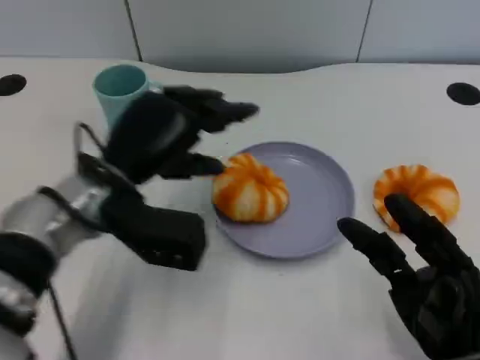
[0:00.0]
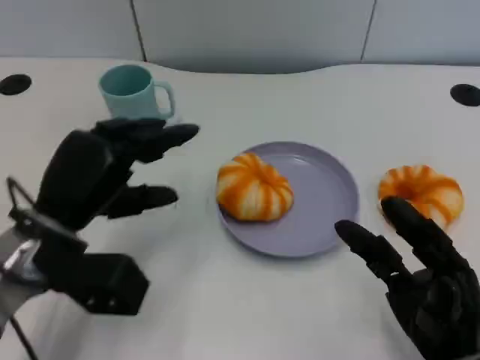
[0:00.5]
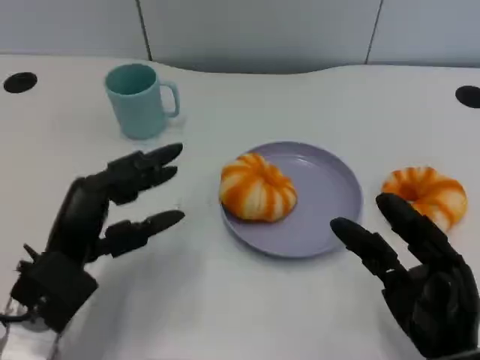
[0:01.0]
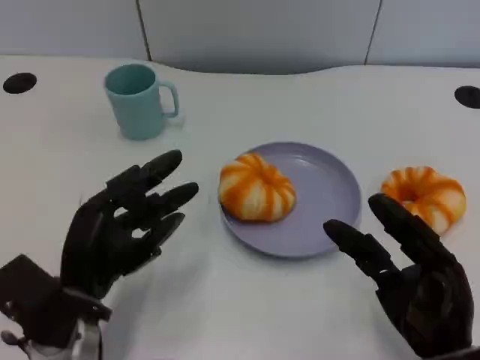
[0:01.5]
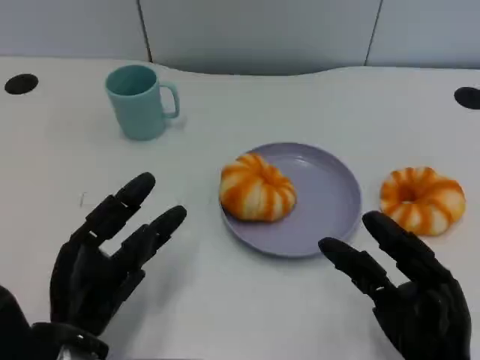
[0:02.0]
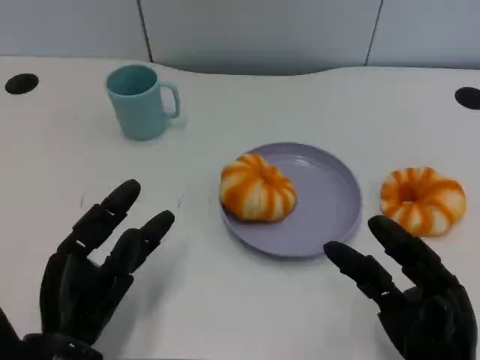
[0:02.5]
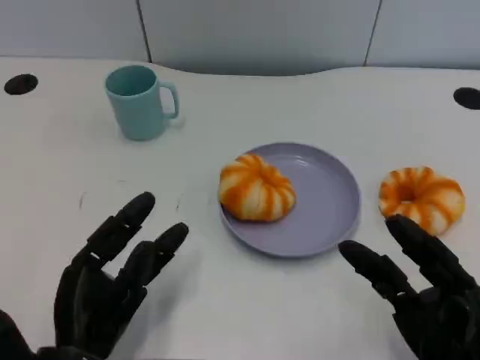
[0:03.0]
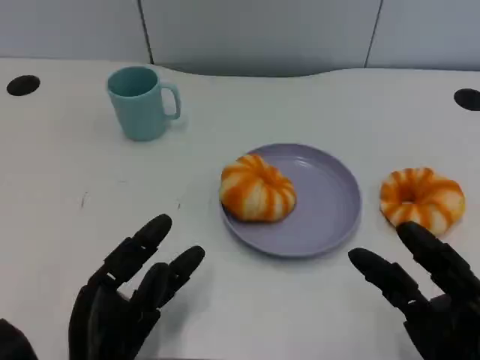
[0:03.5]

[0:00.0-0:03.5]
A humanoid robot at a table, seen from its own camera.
Task of the whole recording: Grasp the bread from the table and place it into the plate.
0:00.0 to 0:02.0: The left hand goes some 15 cm backward and downward.
0:02.0 to 0:03.5: The hands make only small movements.

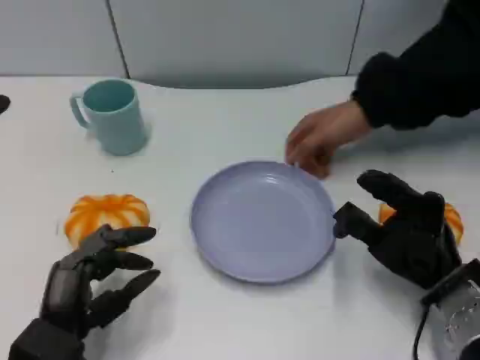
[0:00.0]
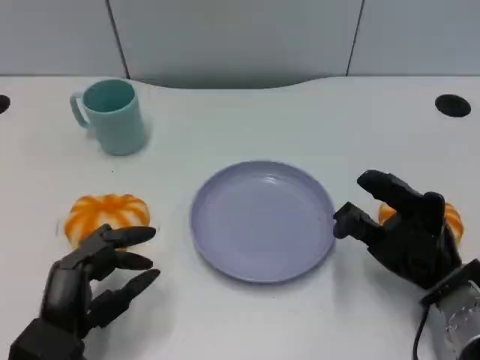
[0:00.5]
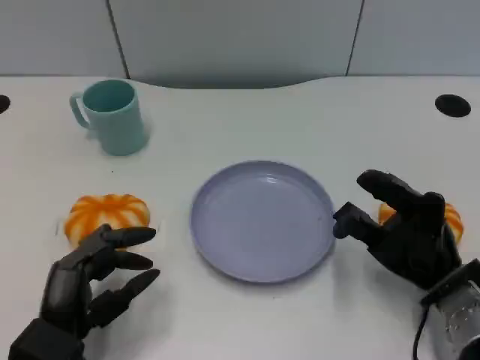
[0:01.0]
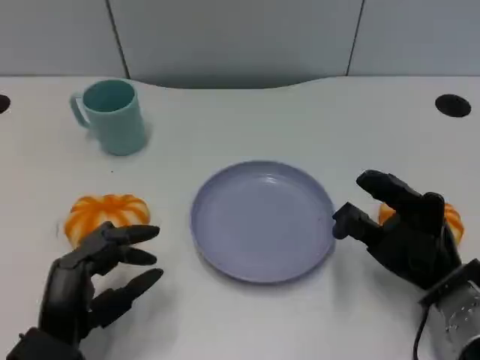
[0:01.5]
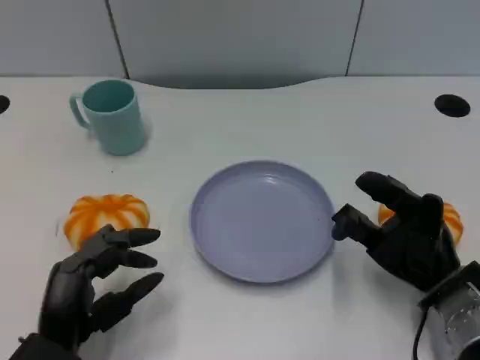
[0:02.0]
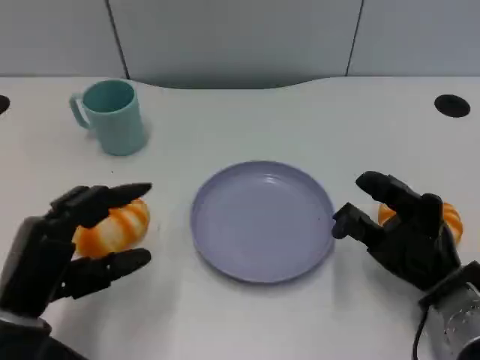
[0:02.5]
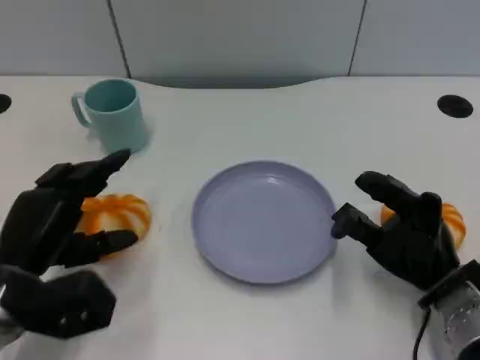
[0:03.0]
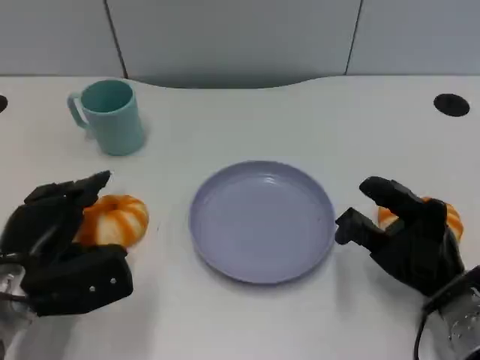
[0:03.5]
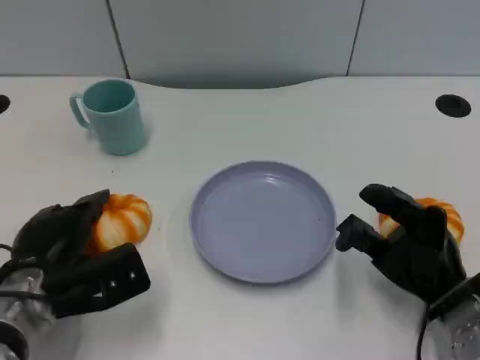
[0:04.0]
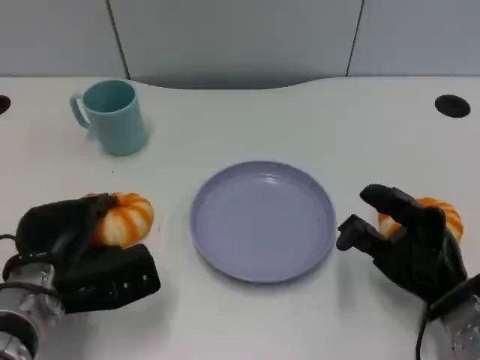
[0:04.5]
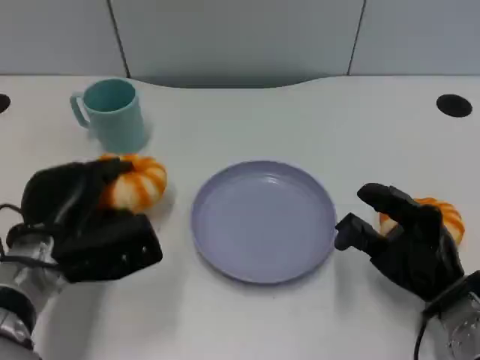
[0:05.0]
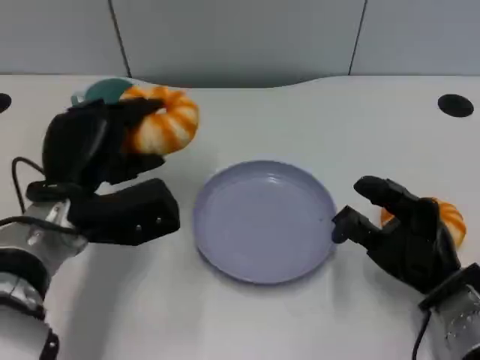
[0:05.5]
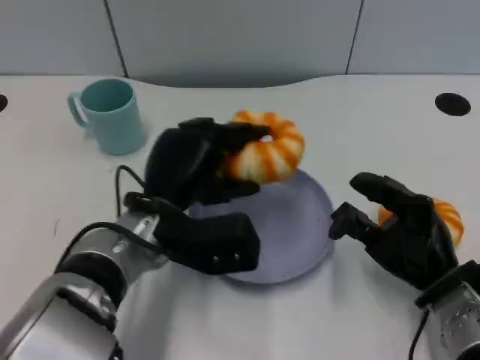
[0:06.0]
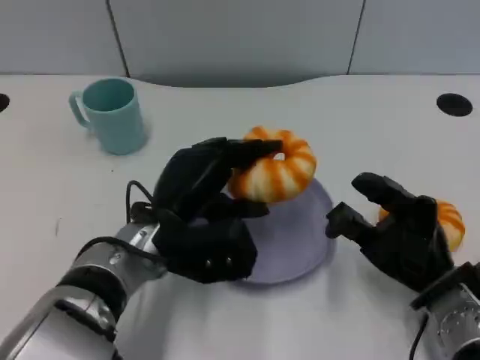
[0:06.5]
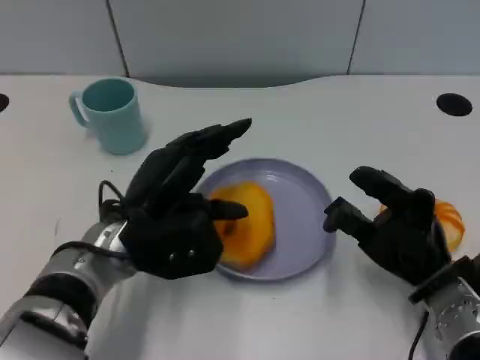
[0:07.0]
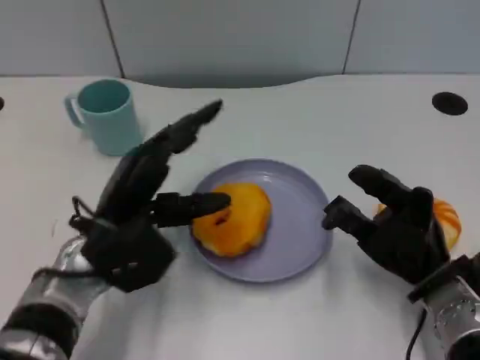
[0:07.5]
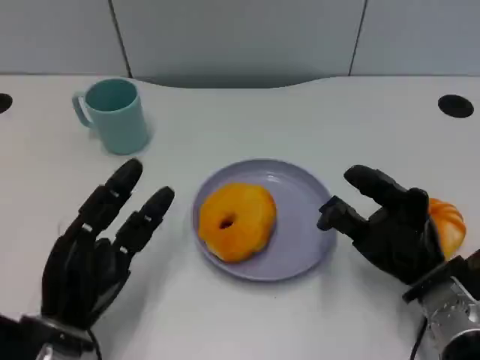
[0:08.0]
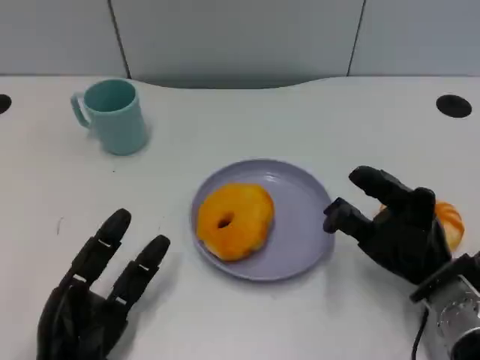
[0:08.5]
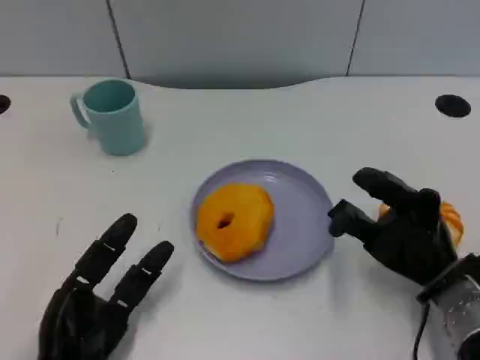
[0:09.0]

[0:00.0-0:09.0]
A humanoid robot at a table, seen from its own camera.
Task of the whole recording: Grasp the bread from the table and place it into the plate.
0:02.0 to 0:04.5: The left hand shifts approximately 10 cm forward.
0:04.5 to 0:07.0: The left hand shifts about 10 cm to the right.
0:07.0 to 0:09.0: The left hand is displaced backward, downward and to the left by some 15 cm.

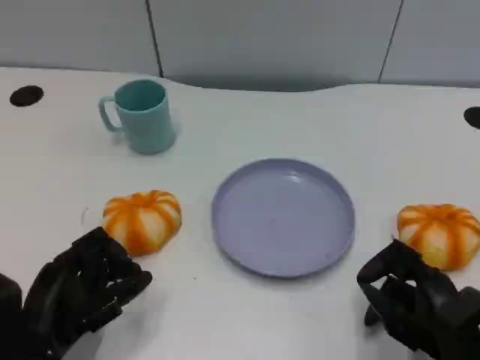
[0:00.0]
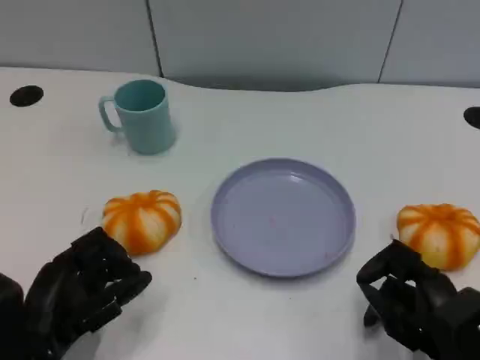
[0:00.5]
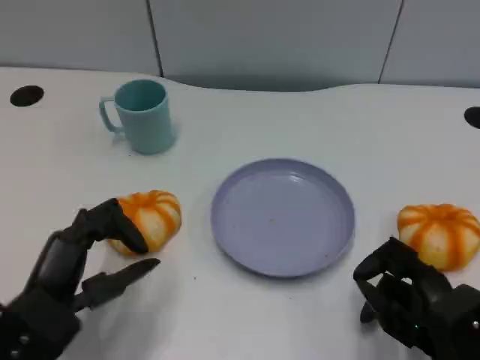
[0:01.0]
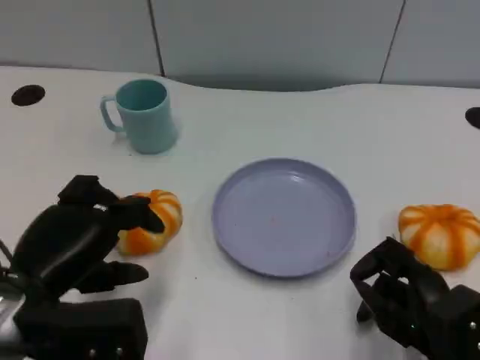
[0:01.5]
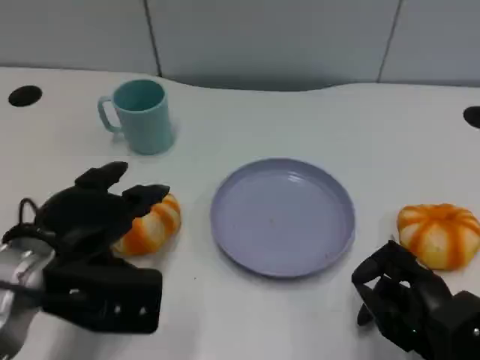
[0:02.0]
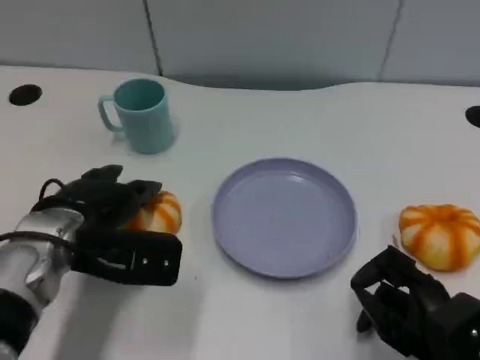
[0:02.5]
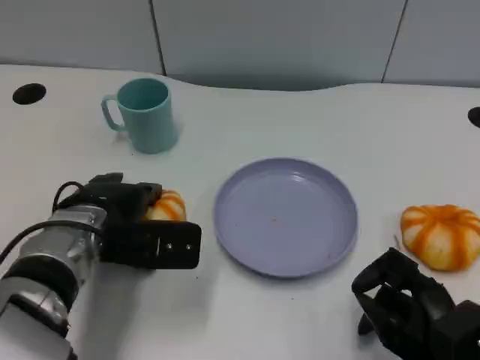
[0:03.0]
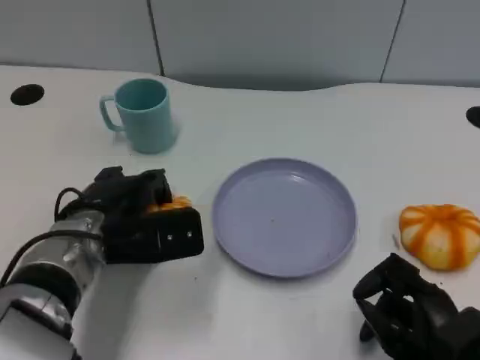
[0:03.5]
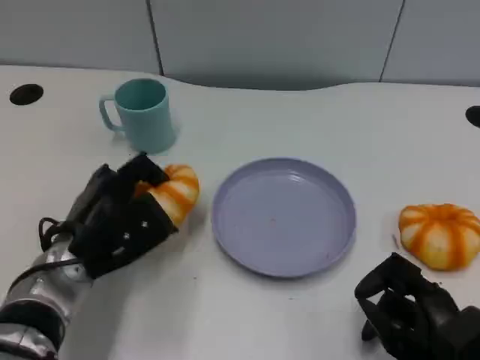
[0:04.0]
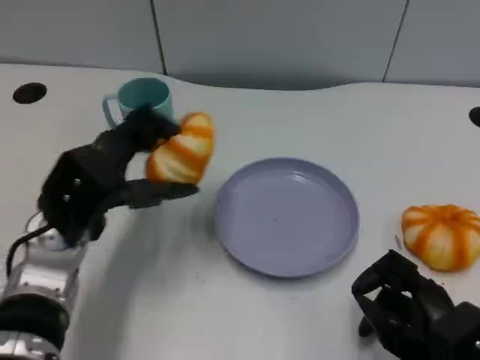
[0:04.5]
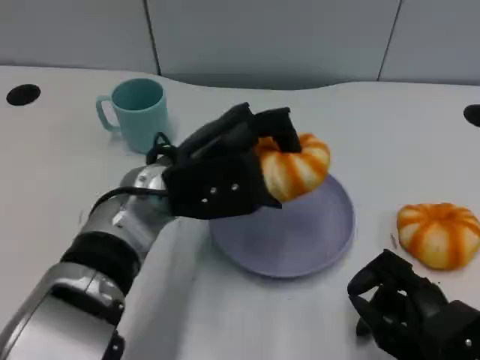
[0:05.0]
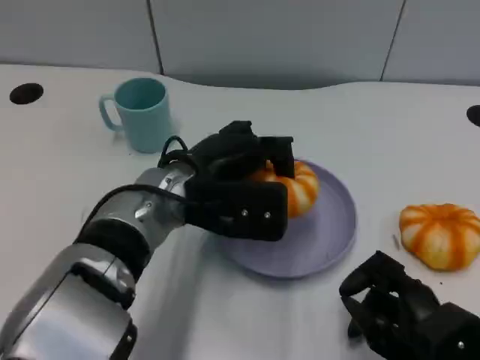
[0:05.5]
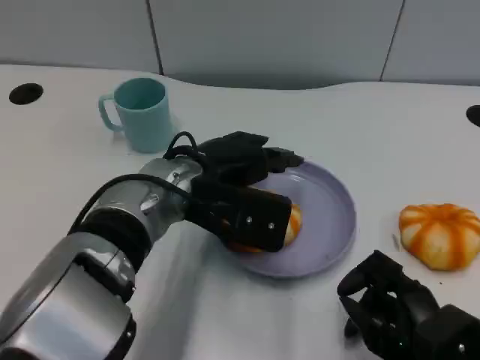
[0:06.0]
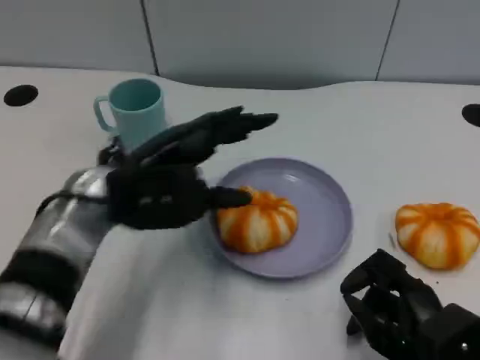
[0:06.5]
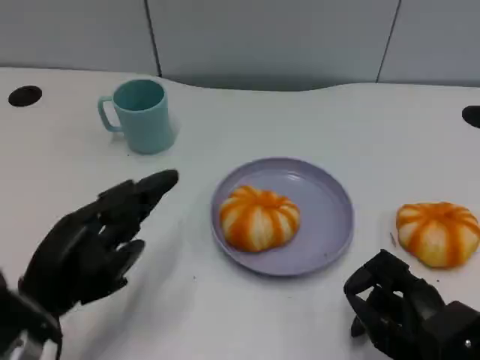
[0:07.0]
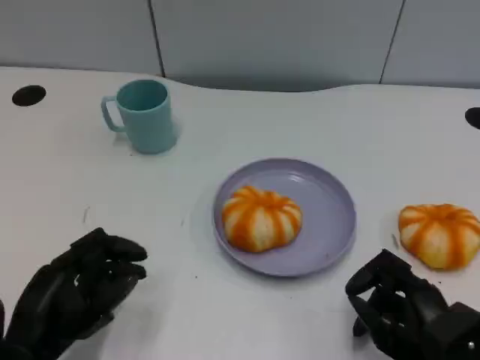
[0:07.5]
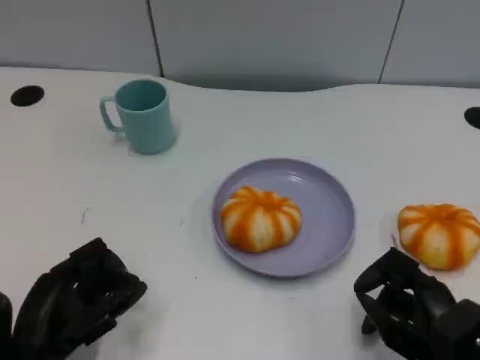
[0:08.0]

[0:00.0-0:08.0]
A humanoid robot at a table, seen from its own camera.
Task of the whole recording: Grasp the bread from the table and place it into the plate.
0:00.0 to 0:02.0: The left hand shifts approximately 10 cm upward and forward.
0:02.0 to 0:04.0: The left hand goes some 5 cm downward.
0:04.0 to 0:06.0: The left hand travels to the right and upward by approximately 15 cm.
0:06.0 to 0:08.0: The left hand travels to the left, backward and downward by roughly 25 cm.

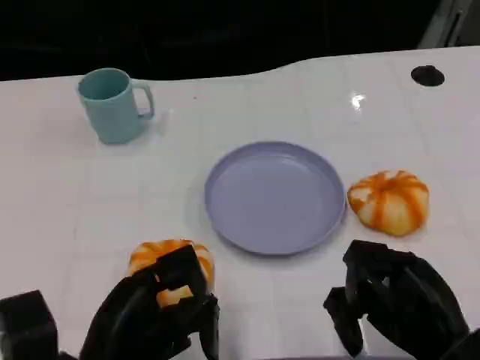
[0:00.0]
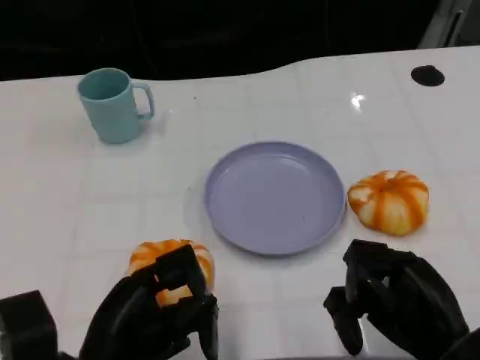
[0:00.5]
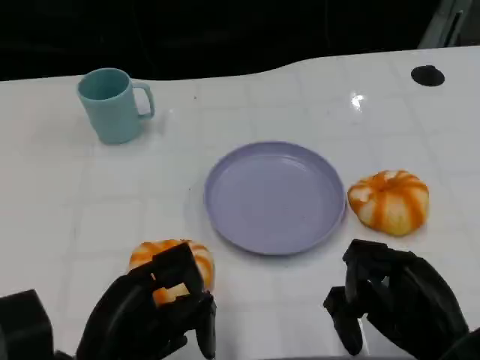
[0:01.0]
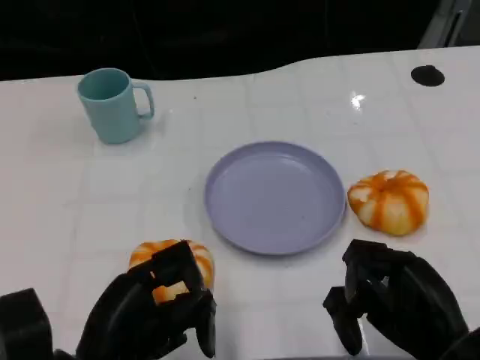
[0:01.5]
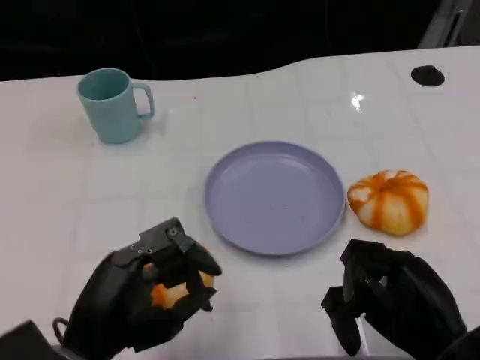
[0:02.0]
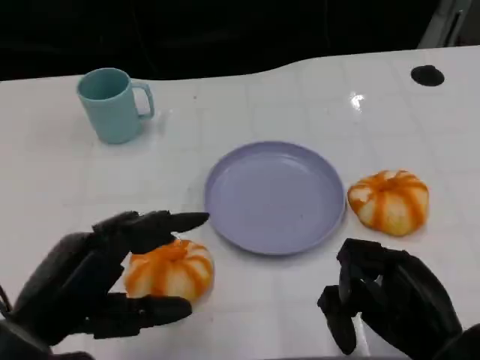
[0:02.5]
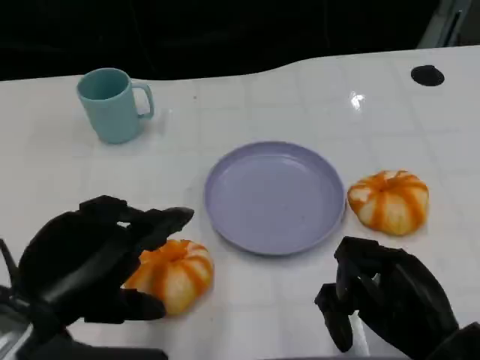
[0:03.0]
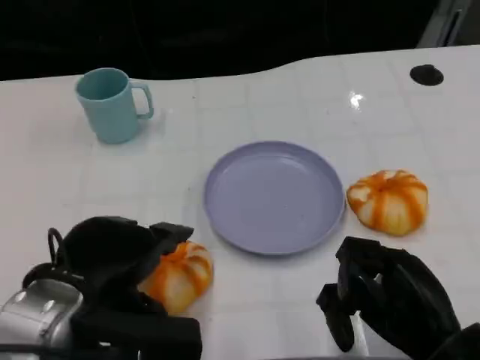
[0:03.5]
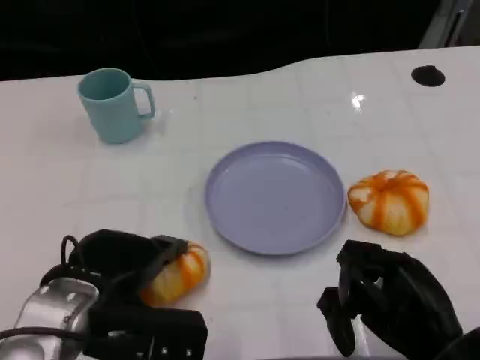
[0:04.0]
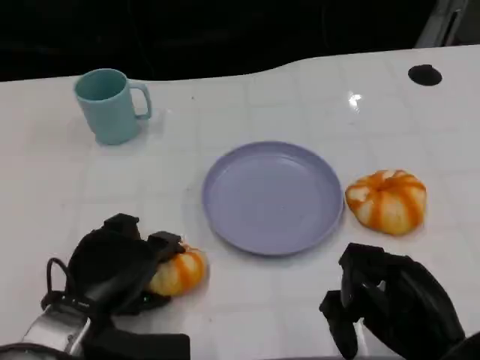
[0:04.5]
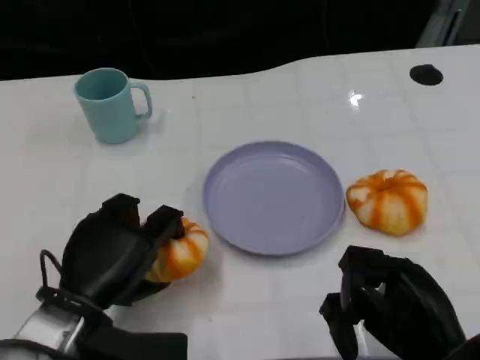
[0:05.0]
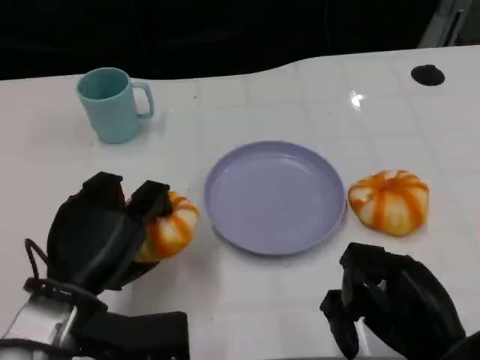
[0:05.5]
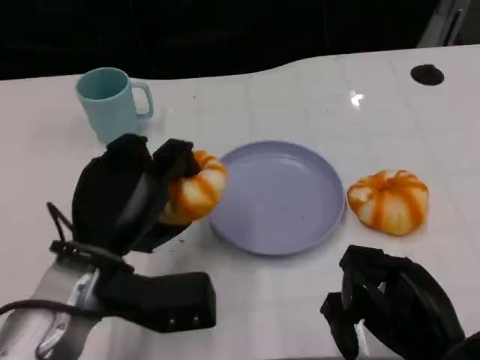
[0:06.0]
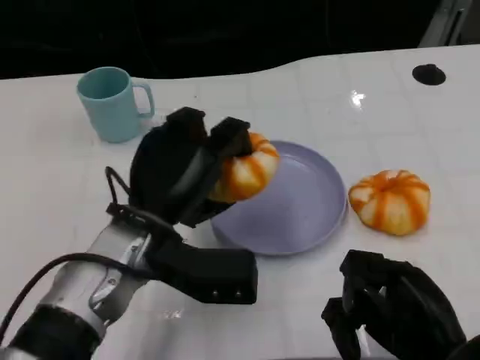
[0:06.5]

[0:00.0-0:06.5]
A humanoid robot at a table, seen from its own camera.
Task of the whole recording: Grasp the bread from the table and place it into the plate.
0:02.0 to 0:04.5: The left hand moves forward, about 5 cm.
0:04.5 to 0:06.5: The left hand travels to the right, upward and forward by roughly 10 cm.
